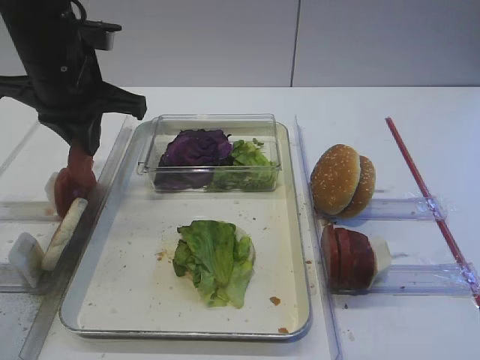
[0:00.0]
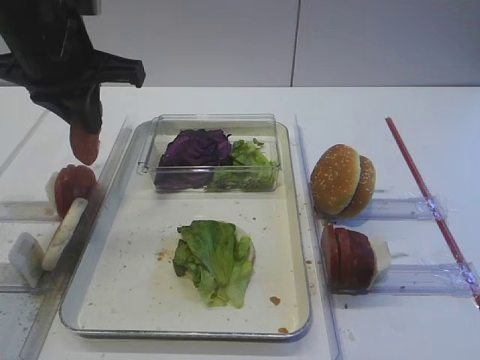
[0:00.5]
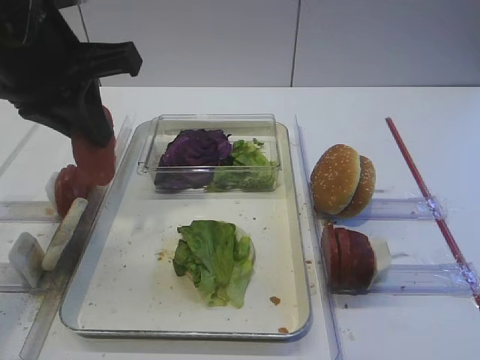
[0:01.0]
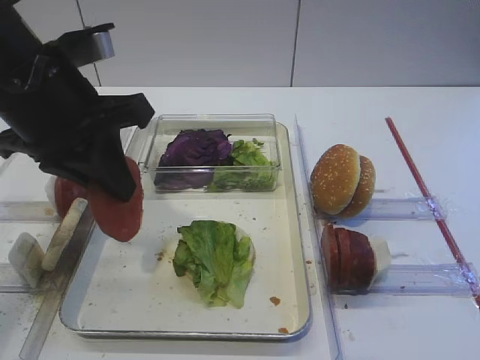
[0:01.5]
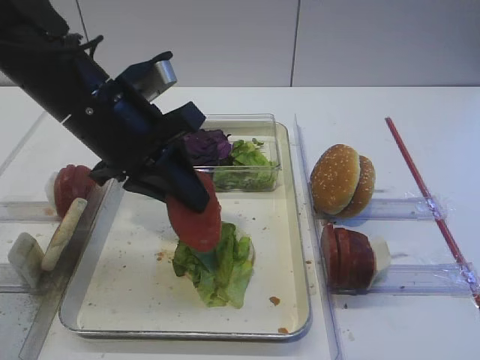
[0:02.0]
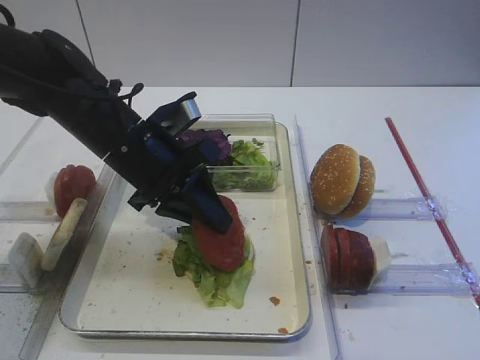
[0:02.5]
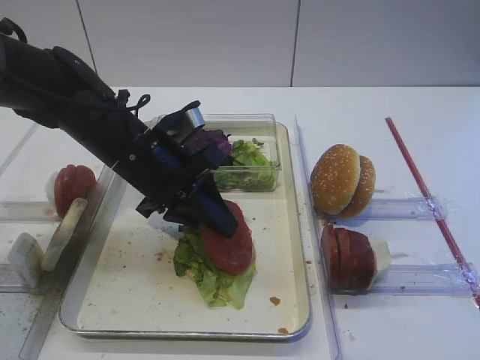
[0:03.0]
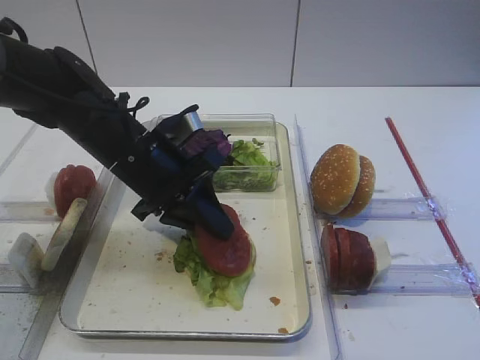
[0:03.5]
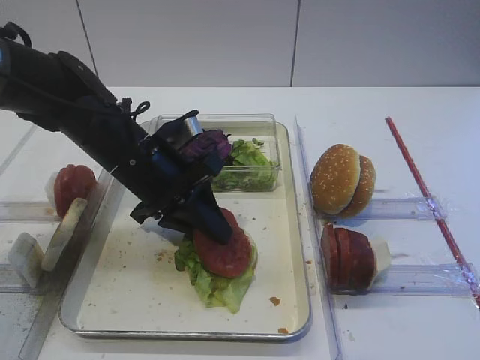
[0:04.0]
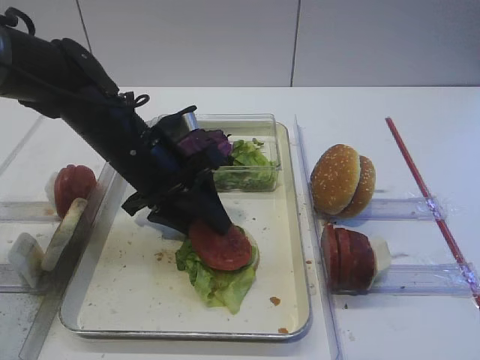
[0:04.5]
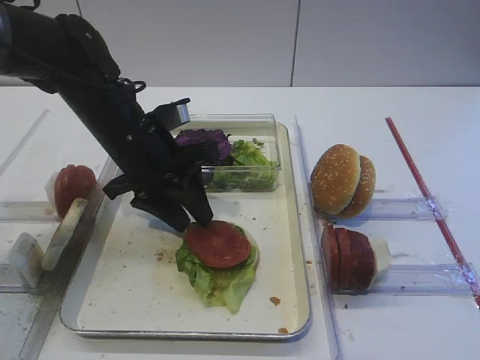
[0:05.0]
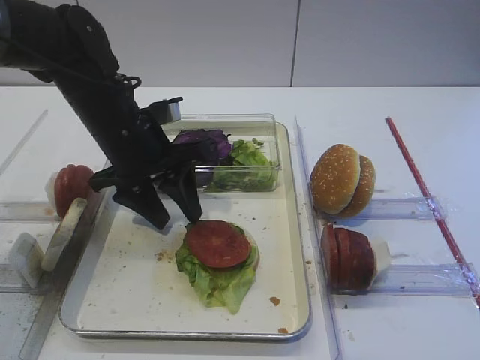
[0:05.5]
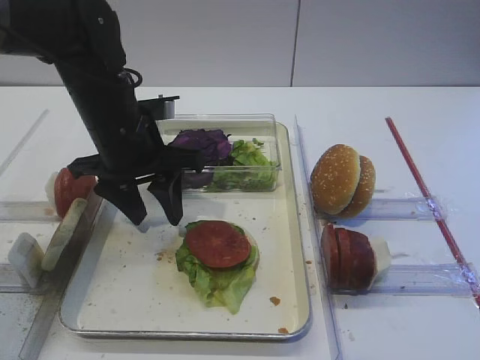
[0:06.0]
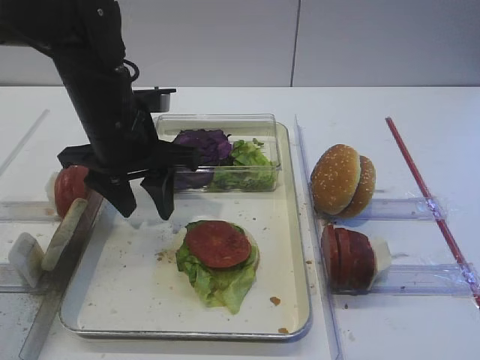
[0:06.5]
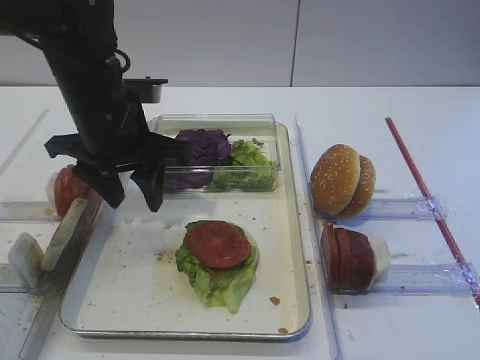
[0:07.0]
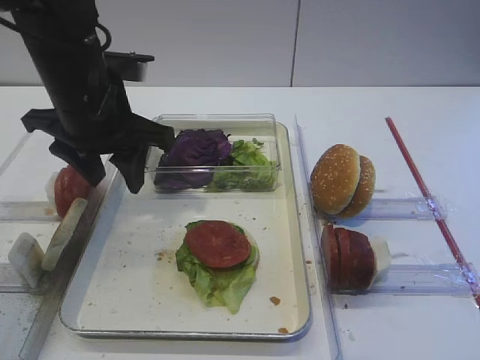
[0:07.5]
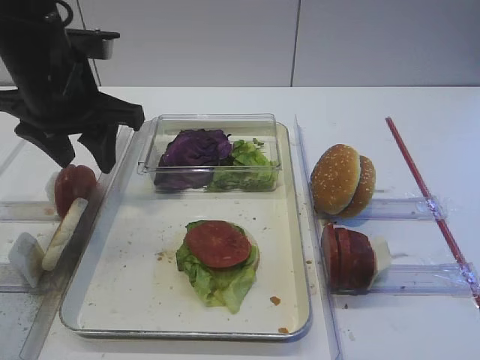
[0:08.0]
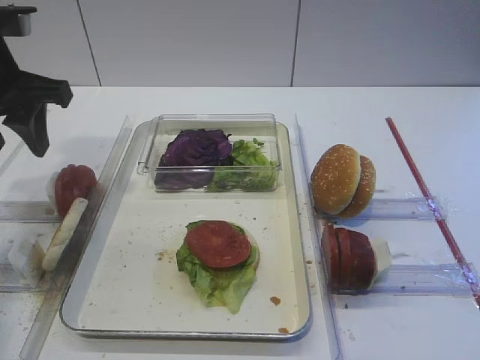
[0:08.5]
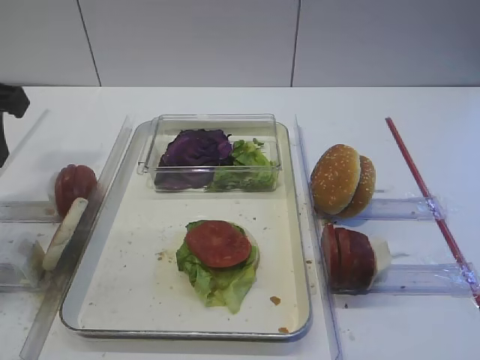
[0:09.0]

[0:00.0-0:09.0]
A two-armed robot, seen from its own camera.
Step, 0:01.0 to 0:06.0: Place the tomato slice on the lettuce leaf with the left gripper.
0:00.0 to 0:02.0: The left gripper heads backward and to the right, covering some 10 cm.
0:02.0 to 0:04.5: The left gripper travels downward by some 5 cm, and opens its fingers.
0:04.5 to 0:07.0: The left gripper moves upward, roughly 5 cm; the right gripper closes up.
0:07.0 to 0:09.0: The left gripper travels to the left, upward and backward by about 15 cm.

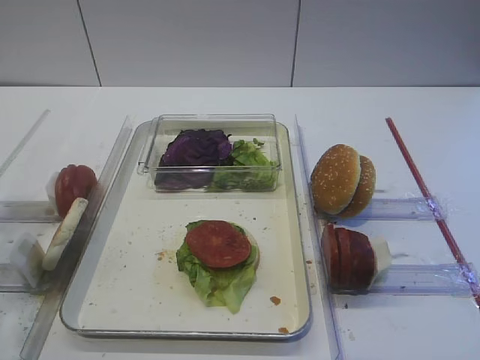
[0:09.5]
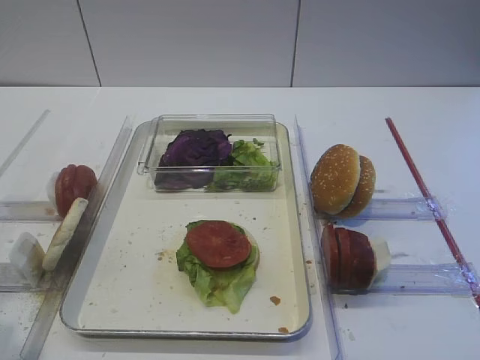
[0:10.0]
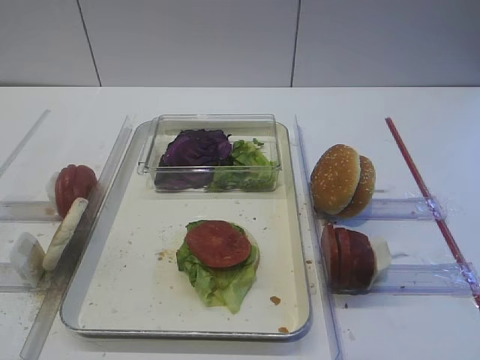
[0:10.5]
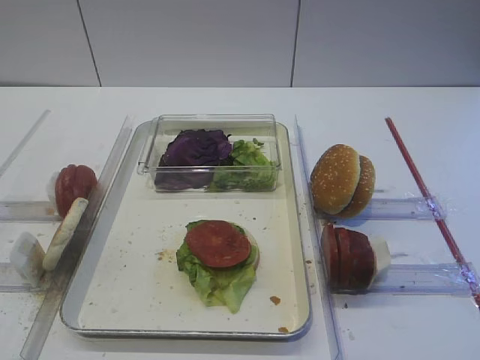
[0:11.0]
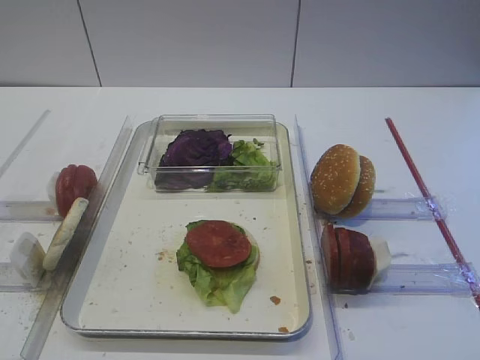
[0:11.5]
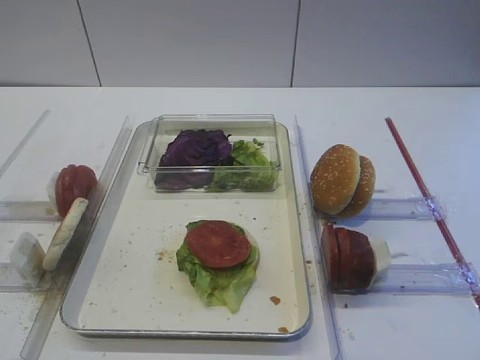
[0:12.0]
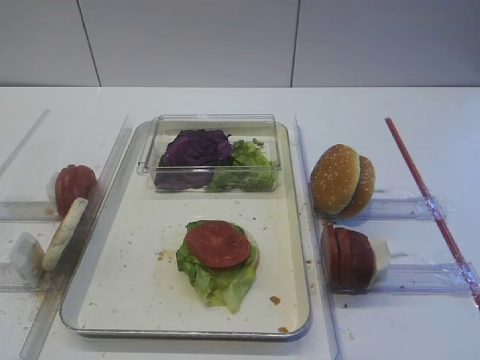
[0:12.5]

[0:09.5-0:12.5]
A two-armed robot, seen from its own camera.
0:09.5 to 0:11.0: The left gripper goes approximately 15 cm backward.
0:11.0 to 0:12.5: Both grippers stay put.

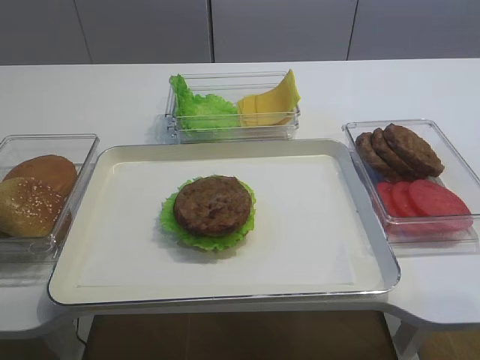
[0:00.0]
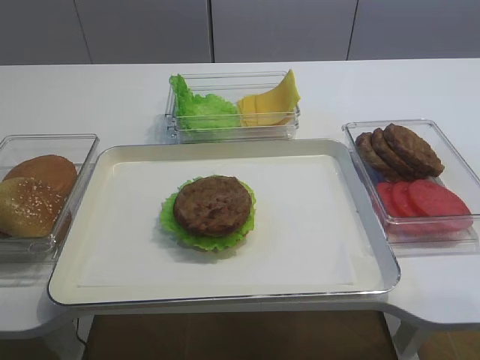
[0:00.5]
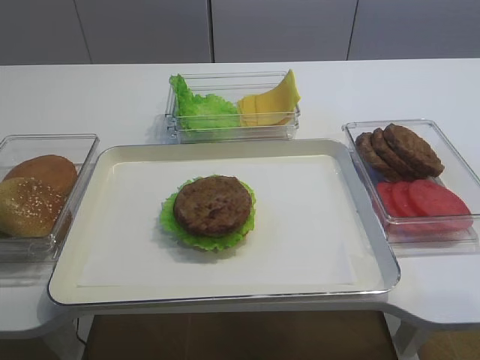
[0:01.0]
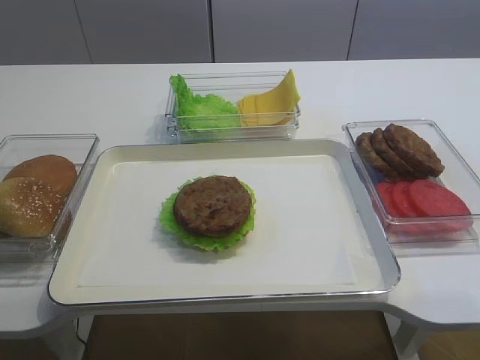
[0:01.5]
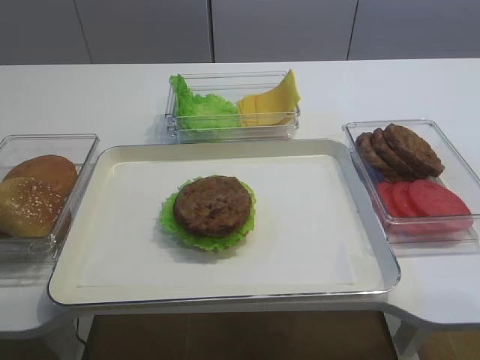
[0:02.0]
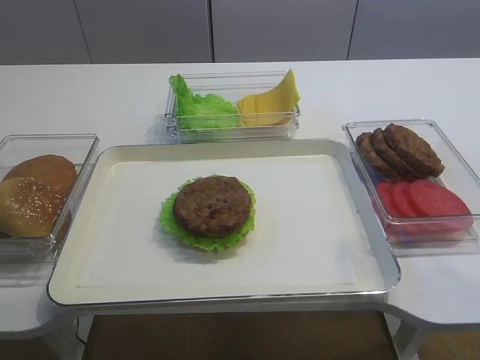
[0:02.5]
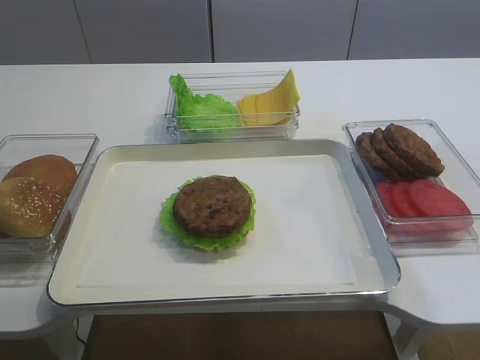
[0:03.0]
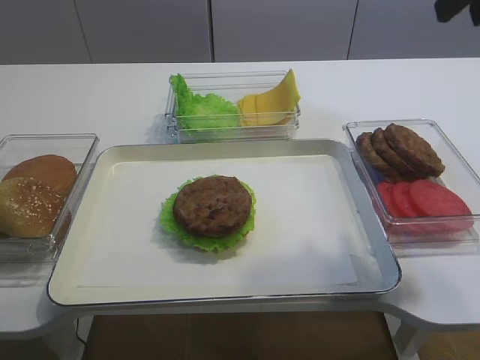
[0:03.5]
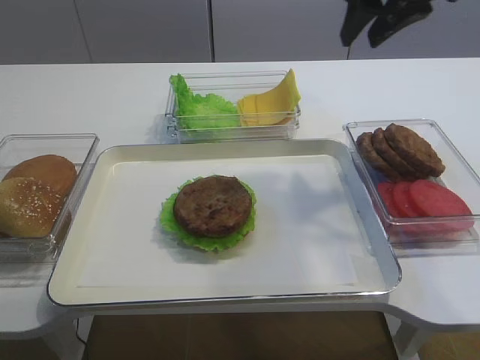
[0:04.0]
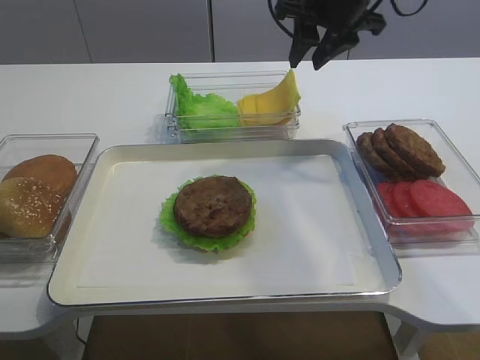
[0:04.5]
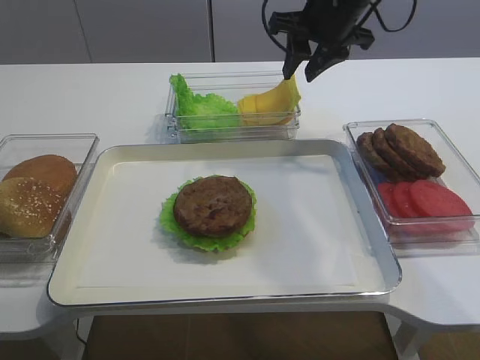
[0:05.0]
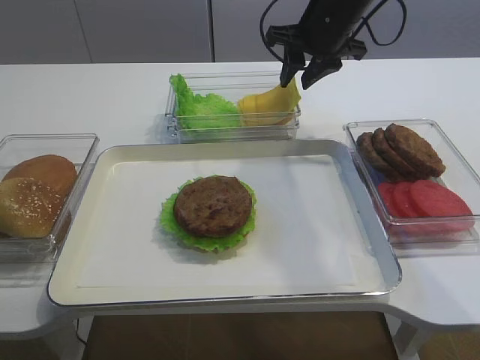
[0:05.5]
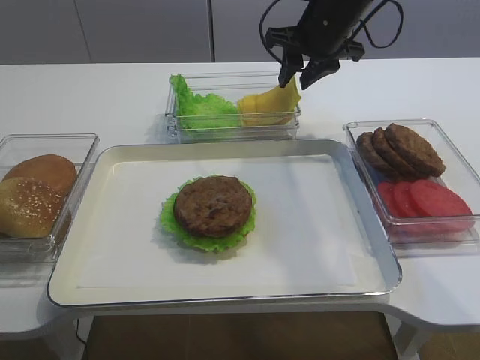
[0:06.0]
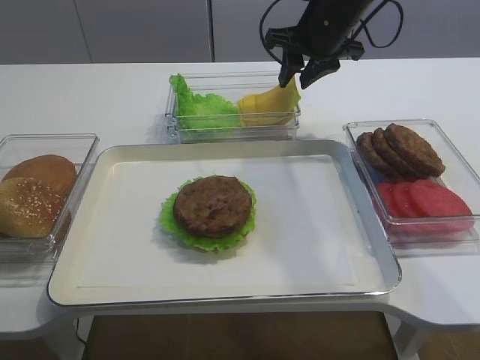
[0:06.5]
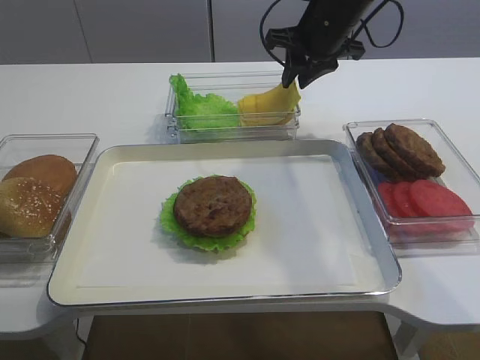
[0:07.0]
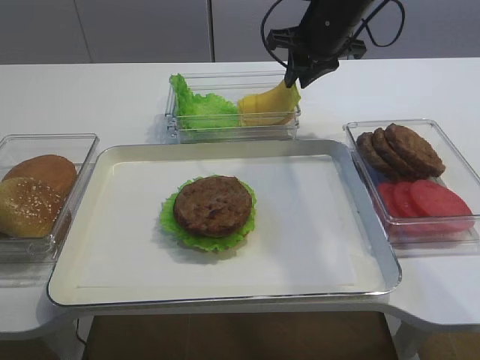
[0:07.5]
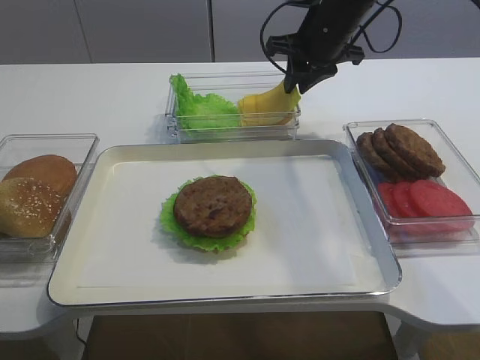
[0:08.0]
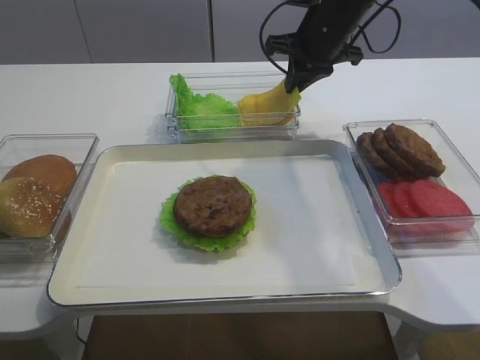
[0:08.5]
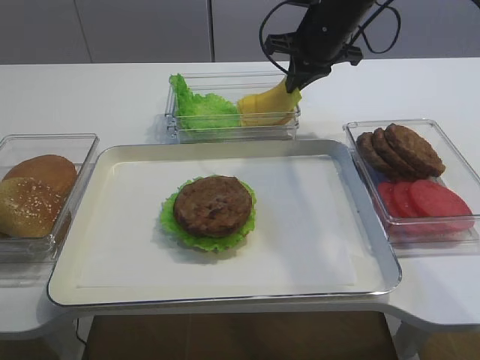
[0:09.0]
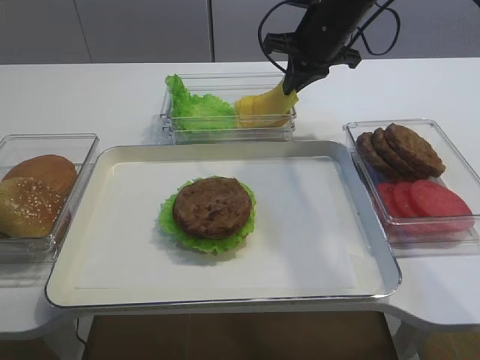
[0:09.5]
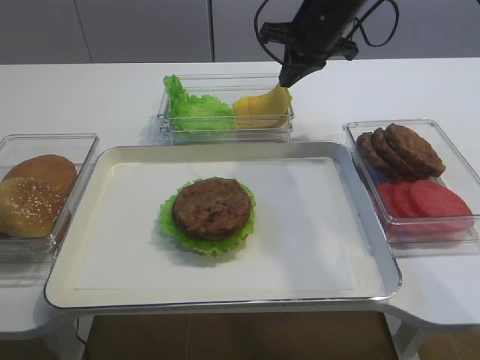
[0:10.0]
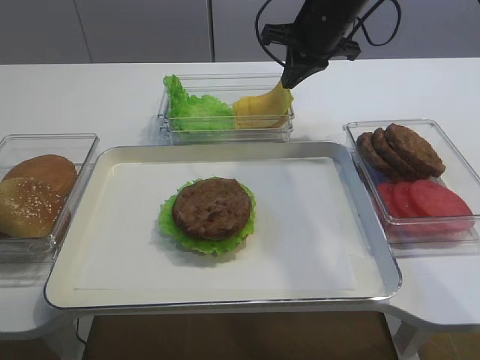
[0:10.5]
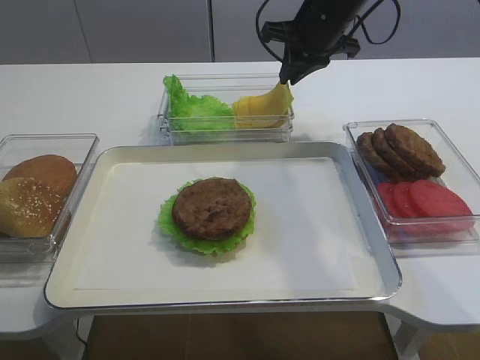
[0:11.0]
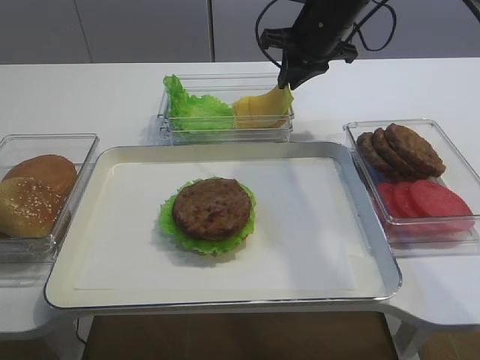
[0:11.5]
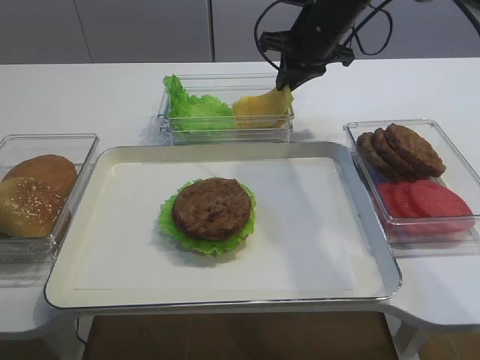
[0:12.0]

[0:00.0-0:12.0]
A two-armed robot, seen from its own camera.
0:02.0 to 0:04.0: The right gripper travels forward by roughly 40 cm.
0:04.0 to 0:06.0: The right gripper shifts roughly 15 cm forward and downward.
0:06.0 to 0:08.0: The two grippers keep their place.
0:08.0 to 0:10.0: The right gripper closes.
0:10.0 to 0:12.0: The grippers move only a little.

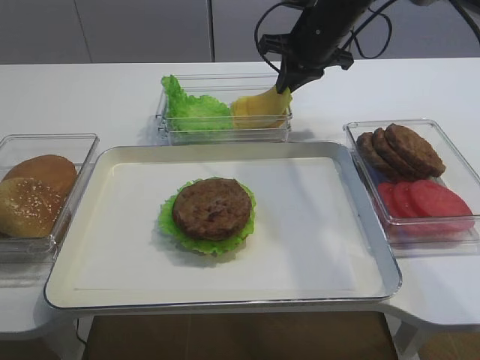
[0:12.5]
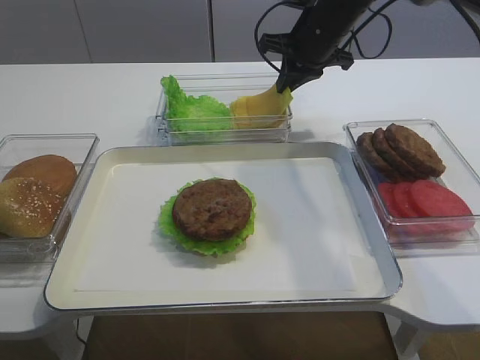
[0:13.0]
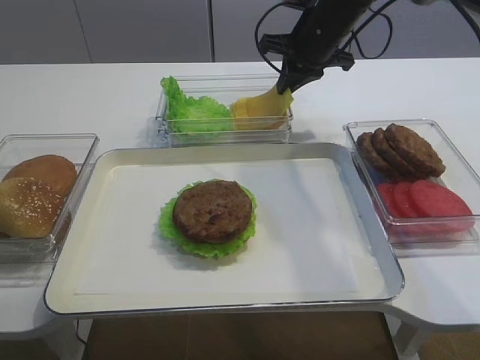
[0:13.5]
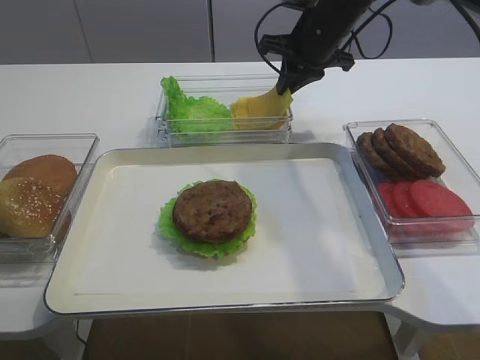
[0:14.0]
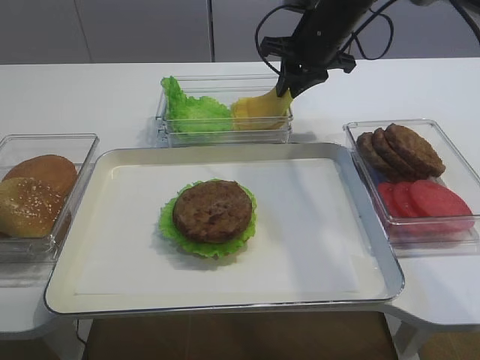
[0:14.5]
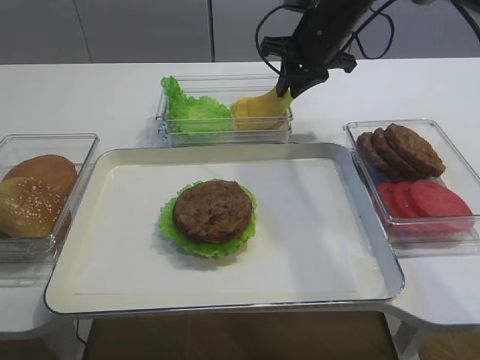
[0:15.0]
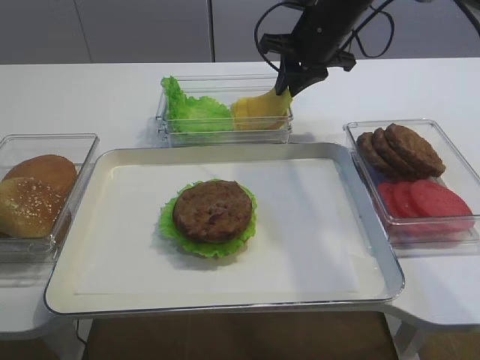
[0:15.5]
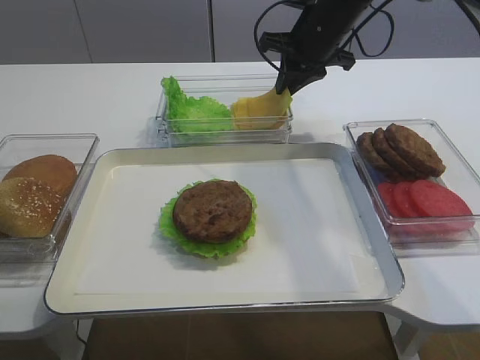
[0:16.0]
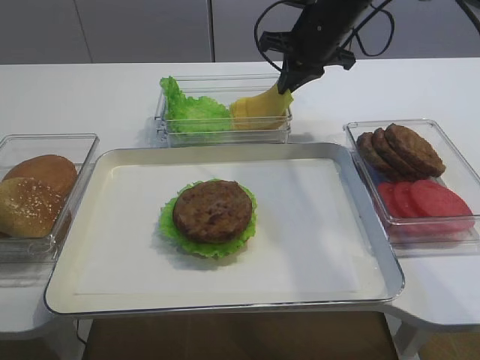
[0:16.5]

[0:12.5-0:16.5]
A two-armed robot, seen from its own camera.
0:12.5 to 0:14.5: The two grippers keep their place.
0:14.5 to 0:16.5: The right gripper closes up.
